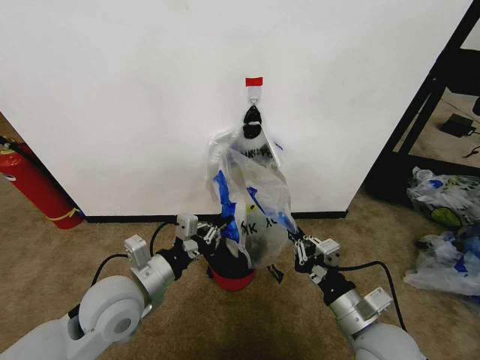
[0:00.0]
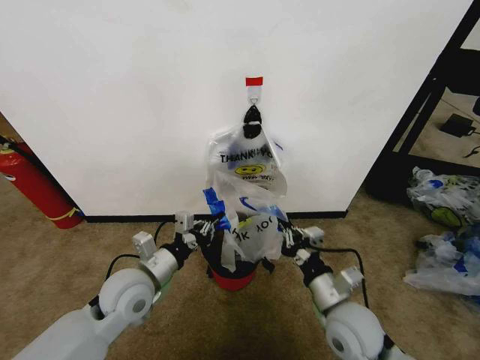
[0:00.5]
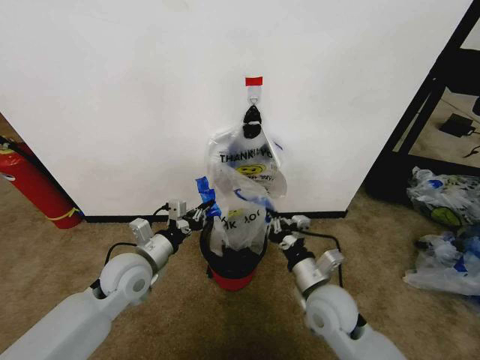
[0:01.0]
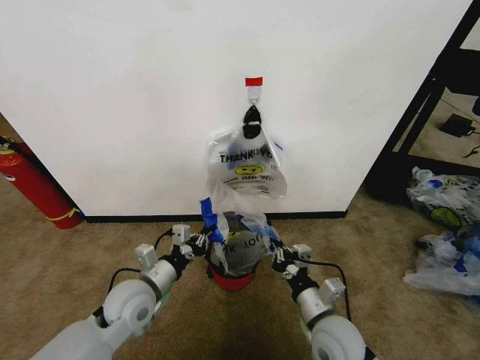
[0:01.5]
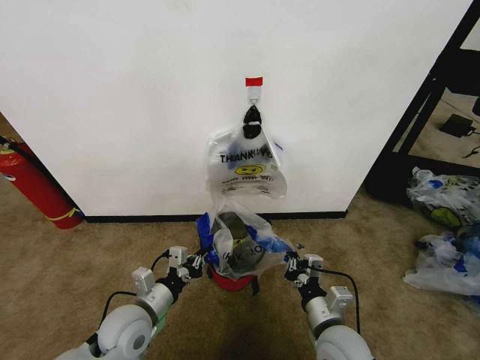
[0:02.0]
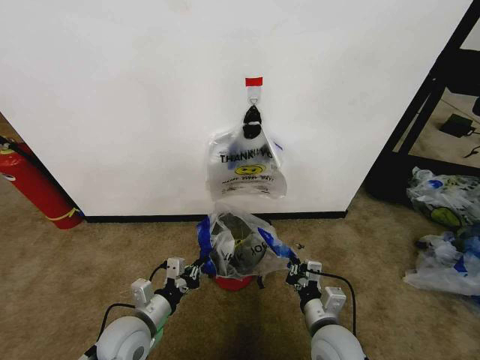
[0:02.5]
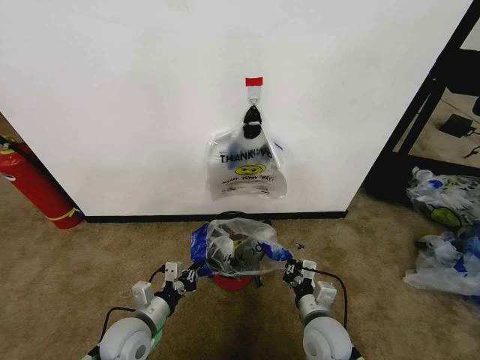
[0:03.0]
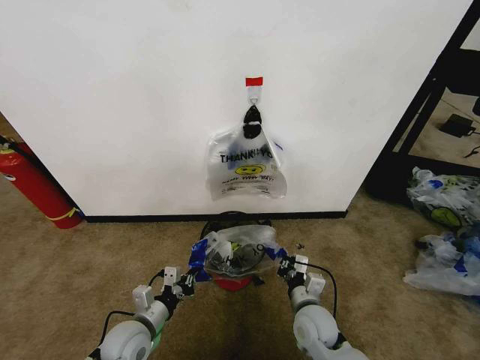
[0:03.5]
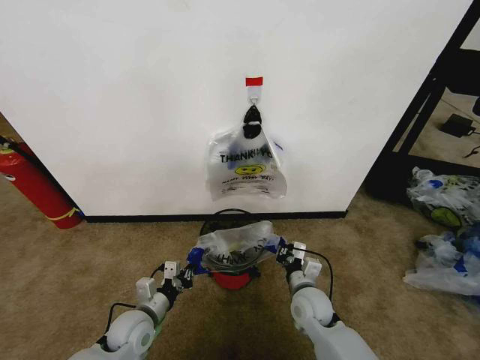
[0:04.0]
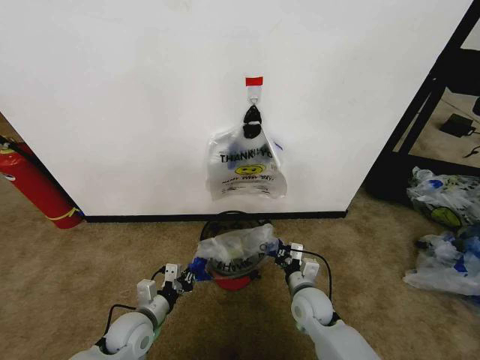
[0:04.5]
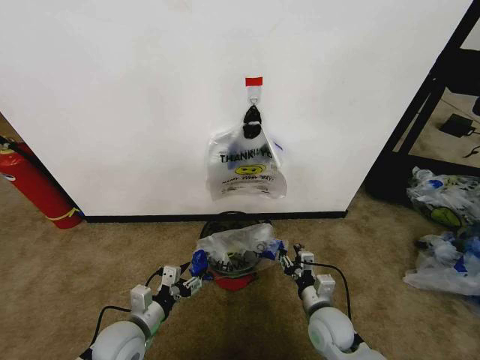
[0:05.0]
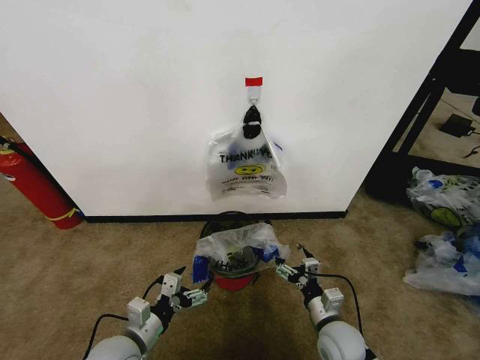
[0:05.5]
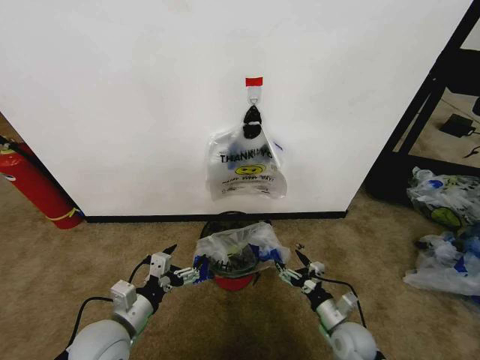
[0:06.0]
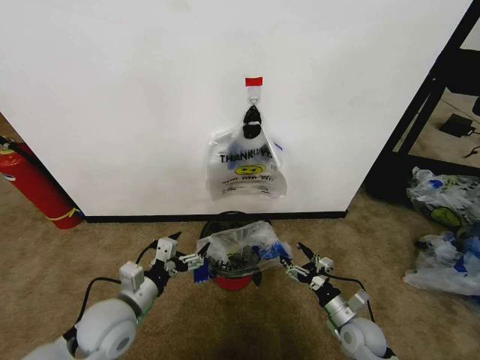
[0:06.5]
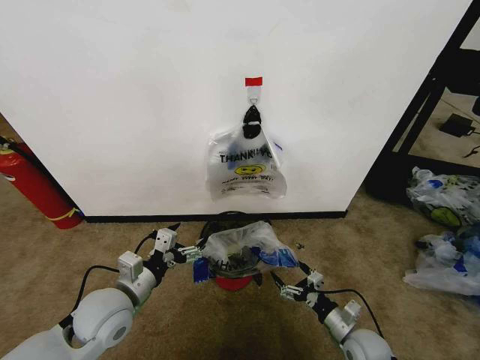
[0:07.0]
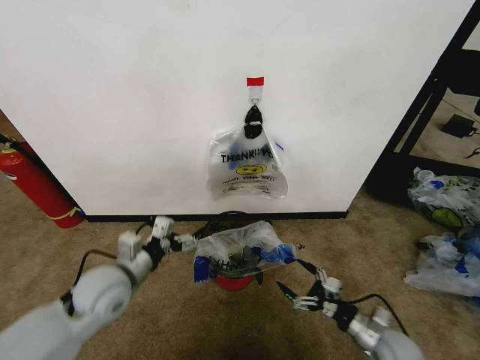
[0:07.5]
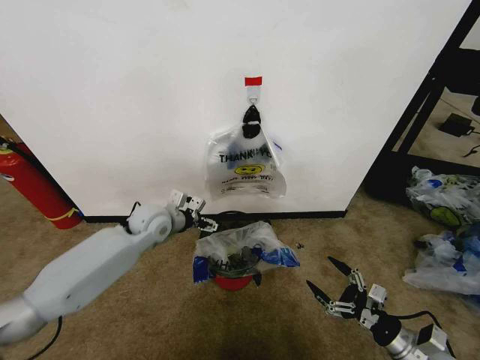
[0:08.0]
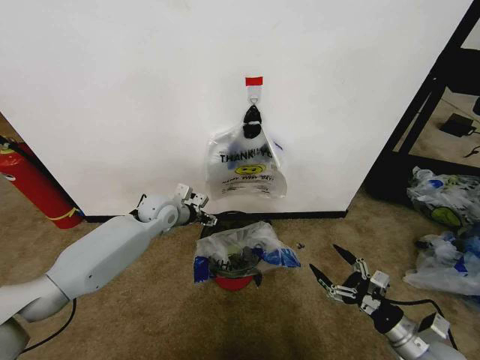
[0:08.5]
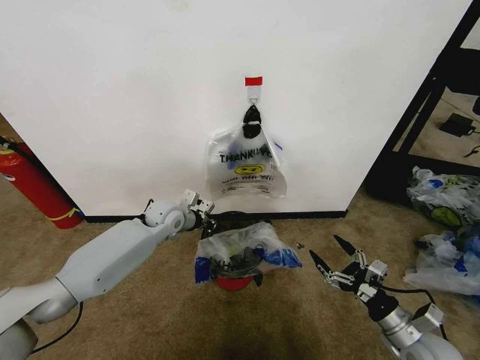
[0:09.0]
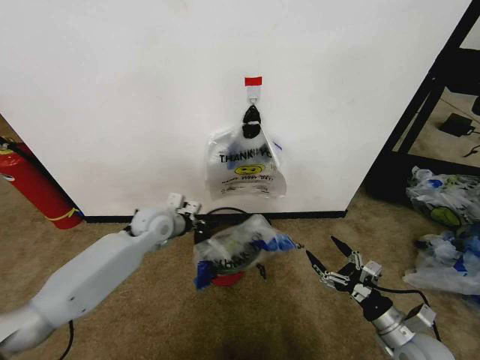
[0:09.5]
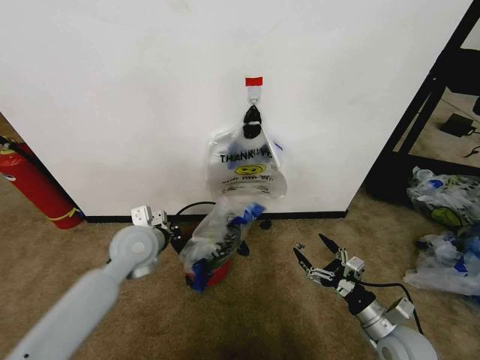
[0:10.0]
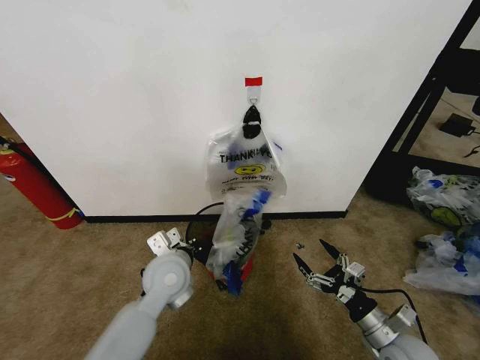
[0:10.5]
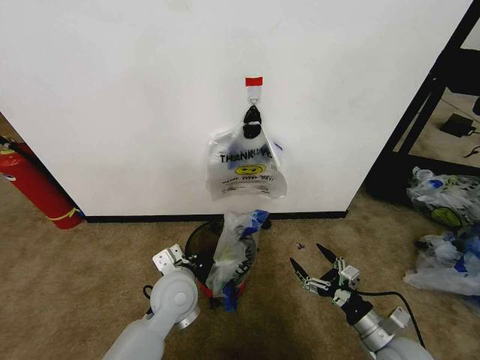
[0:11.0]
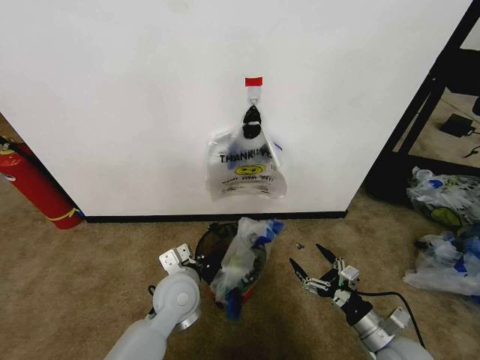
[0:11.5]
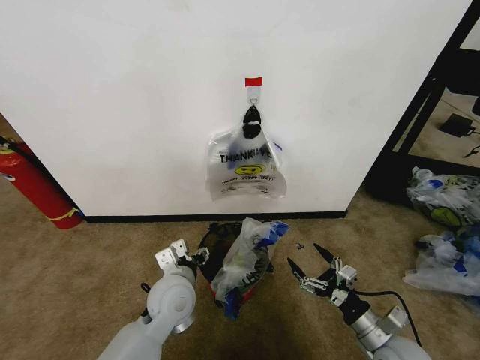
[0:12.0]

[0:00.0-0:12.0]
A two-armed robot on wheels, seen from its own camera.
Task of the whole recording: Pick up the garbage bag from the wall and place it over the trash bin.
0:00.0 to 0:02.0: The left gripper is displaced downward by approximately 10 cm. The right gripper heads downward, covering approximately 5 cm, and moves about 10 cm forward and comes back.
0:02.0 to 0:04.0: The right gripper moves forward and downward, roughly 15 cm, while the left gripper heads downward, covering some 10 cm.
0:04.0 to 0:06.0: The right gripper is displaced to the right, backward and downward by roughly 15 cm, and opens up. The left gripper is displaced upward and backward by about 10 cm, and opens its fingers.
0:06.0 to 0:08.0: The left gripper heads forward, covering roughly 25 cm. Meanwhile the right gripper is displaced to the right, upward and backward by approximately 15 cm.
0:08.0 to 0:10.0: The right gripper shifts about 5 cm to the left. The left gripper is displaced backward by some 10 cm, and closes up.
0:10.0 to 0:12.0: The left gripper shifts approximately 15 cm to the right, backward and downward, and opens up.

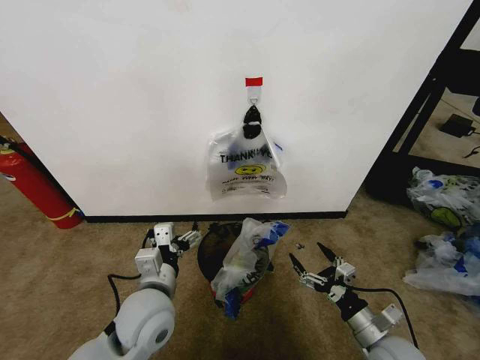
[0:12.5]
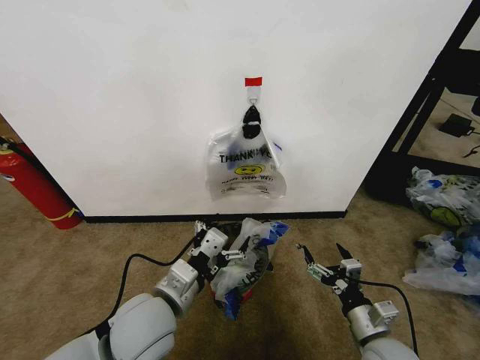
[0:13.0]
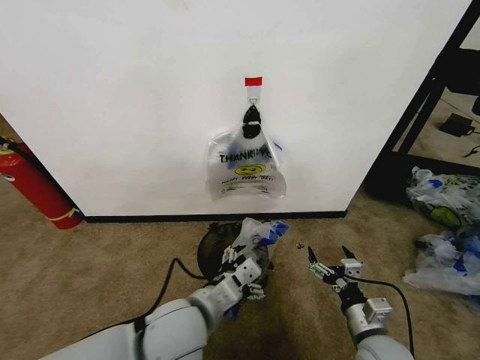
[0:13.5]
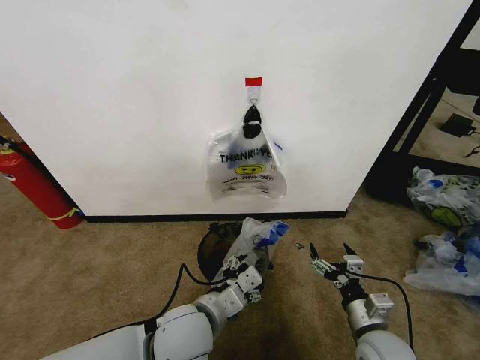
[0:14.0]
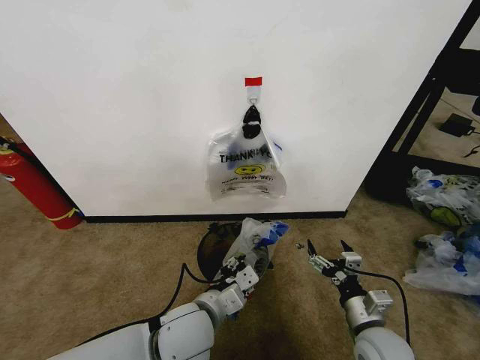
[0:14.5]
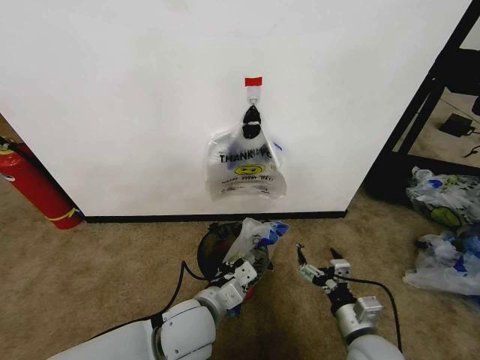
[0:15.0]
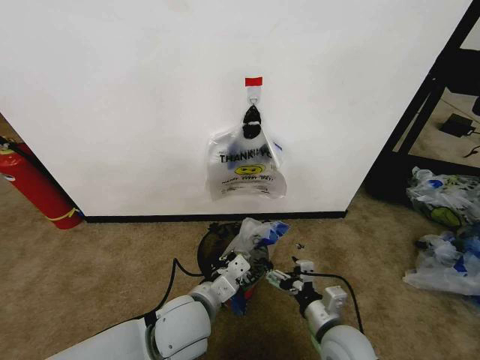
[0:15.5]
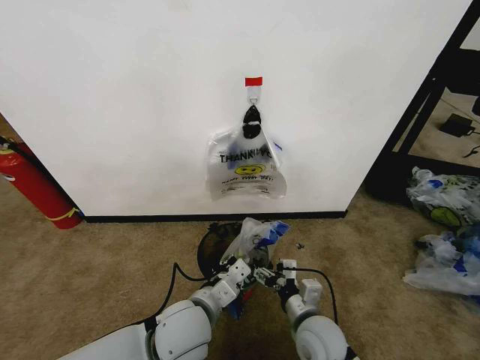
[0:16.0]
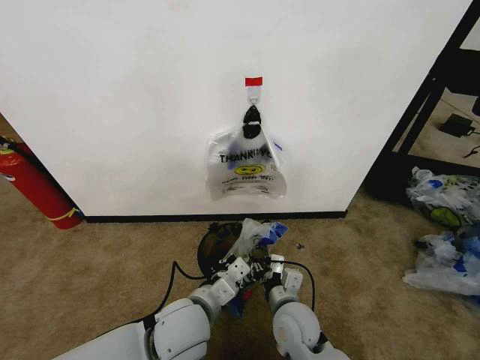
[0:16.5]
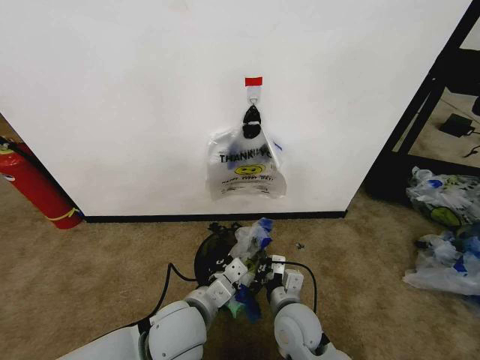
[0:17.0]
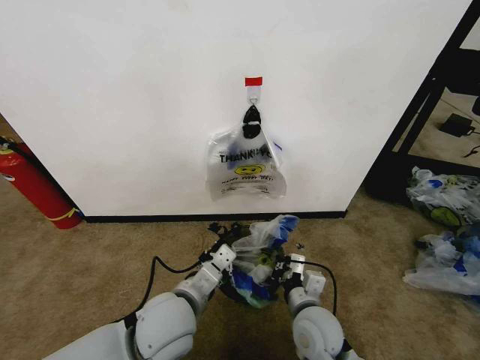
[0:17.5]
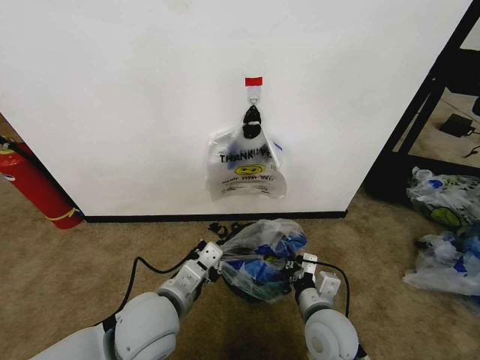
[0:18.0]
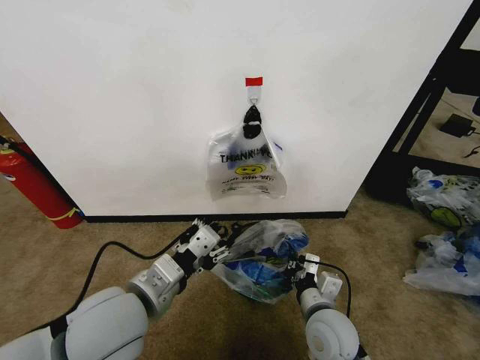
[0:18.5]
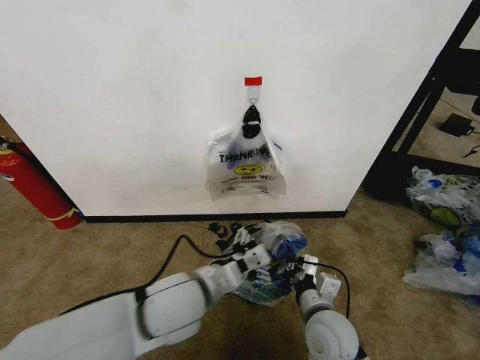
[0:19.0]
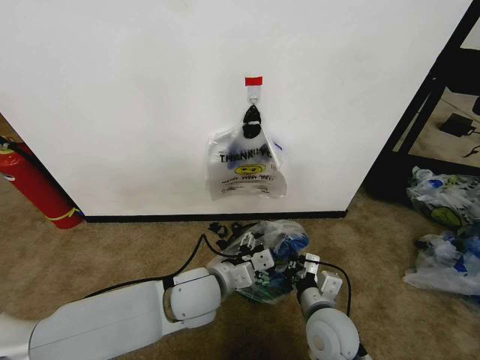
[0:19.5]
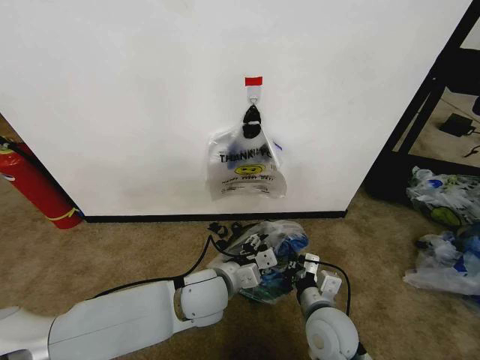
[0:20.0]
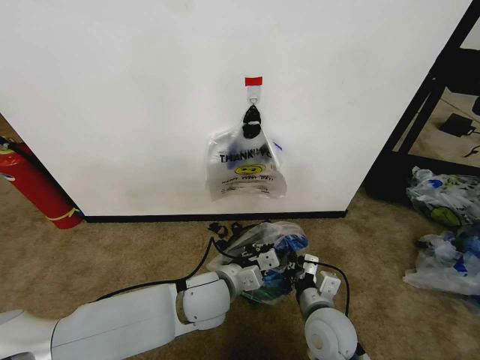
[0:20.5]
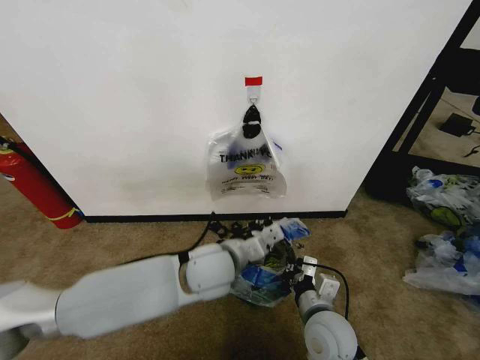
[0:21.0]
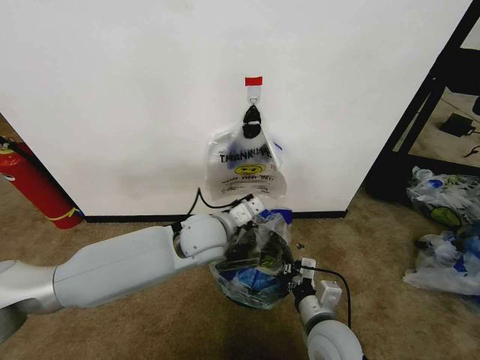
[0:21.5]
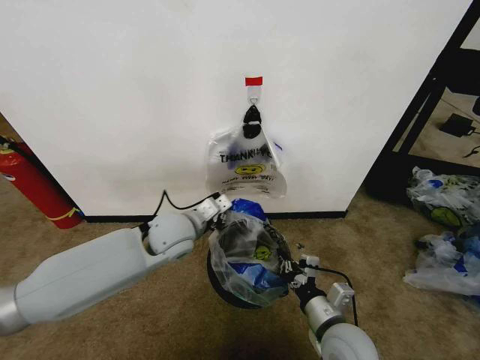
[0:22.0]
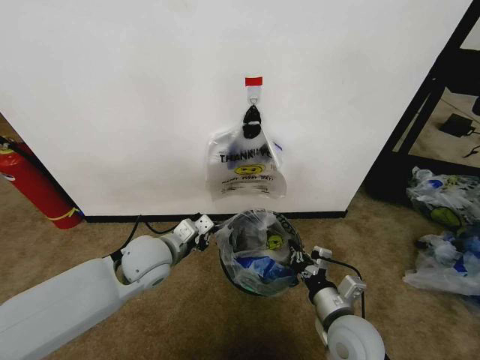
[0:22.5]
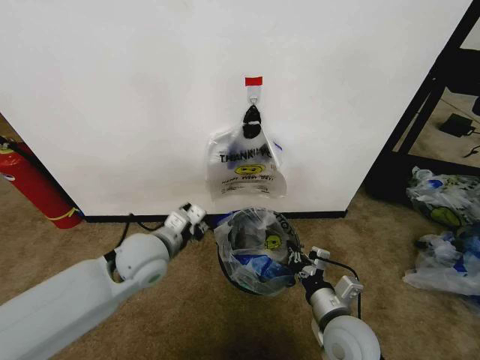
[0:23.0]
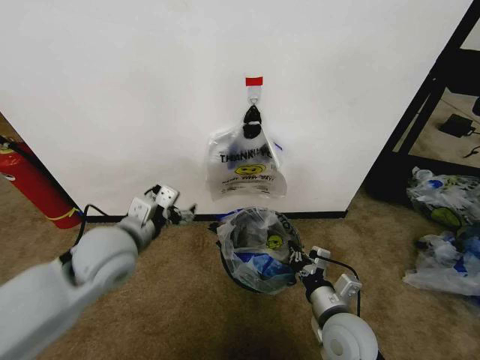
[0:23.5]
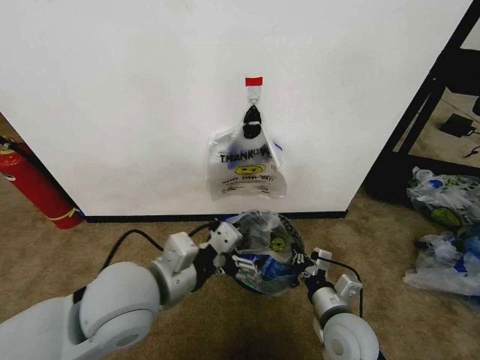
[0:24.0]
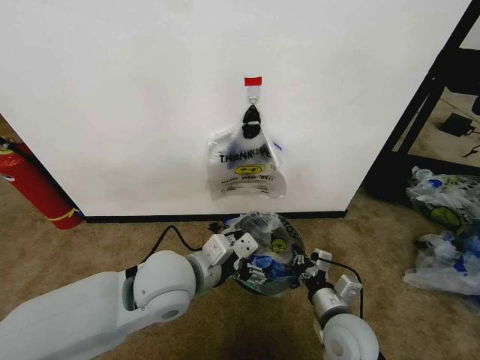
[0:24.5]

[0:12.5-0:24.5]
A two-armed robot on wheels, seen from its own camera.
Task of the whole recording: Pick up the garbage bag from the wall and place it over the trash bin.
0:12.5 to 0:14.5: The left gripper is displaced to the right by some 5 cm, and closes.
0:14.5 to 0:16.5: The right gripper heads to the left, covering about 15 cm, and closes up. Meanwhile the left gripper closes.
0:16.5 to 0:18.5: The left gripper goes some 15 cm upward and to the left, and opens. The right gripper heads to the right, covering about 5 cm, and closes up.
0:18.5 to 0:20.5: The left gripper travels downward, to the right and forward by approximately 20 cm, and closes its fingers.
0:20.5 to 0:22.5: The left gripper is displaced to the left and forward by roughly 15 cm.
0:22.5 to 0:24.5: The left gripper travels backward, to the right and upward by approximately 10 cm, and opens its fingers.

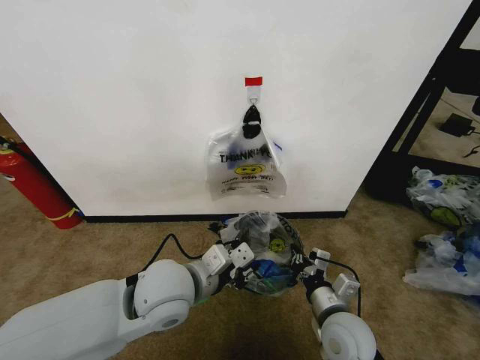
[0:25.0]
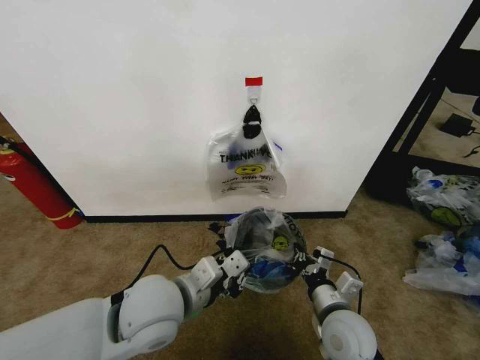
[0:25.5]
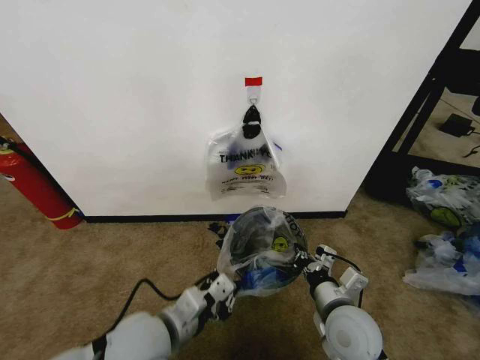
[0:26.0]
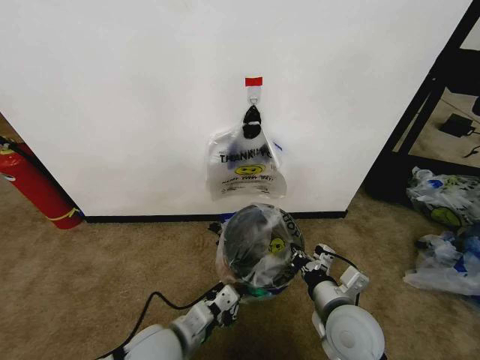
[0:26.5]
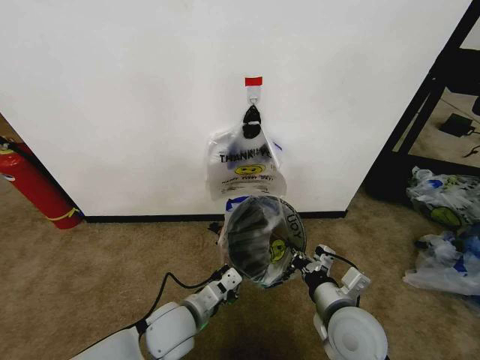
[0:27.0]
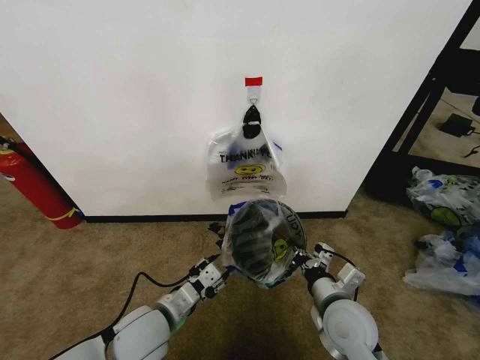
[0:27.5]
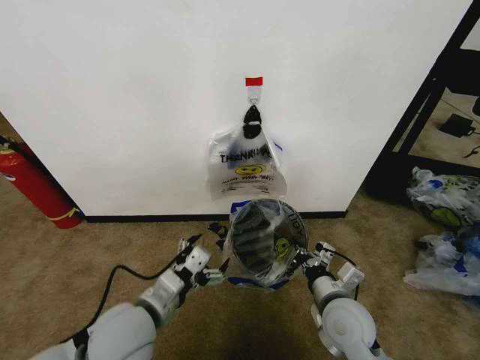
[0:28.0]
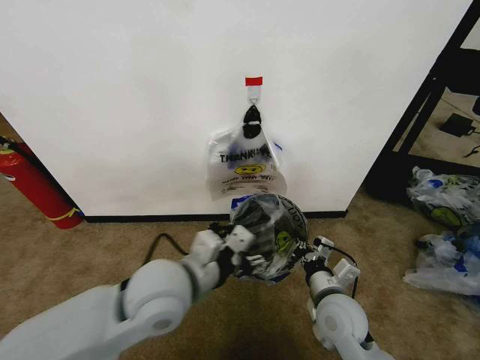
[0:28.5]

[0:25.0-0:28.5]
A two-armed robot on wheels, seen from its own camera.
Task of the whole recording: Pick up the garbage bag from the wall and place it over the trash bin.
0:25.0 to 0:27.0: The left gripper moves downward, roughly 15 cm.
0:27.0 to 0:28.5: The right gripper shifts by some 5 cm, while the left gripper moves upward, about 15 cm, and opens up.
